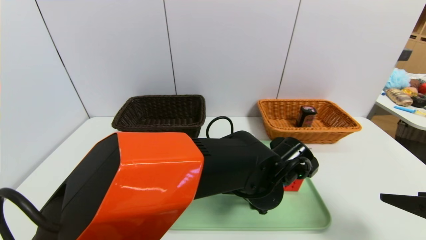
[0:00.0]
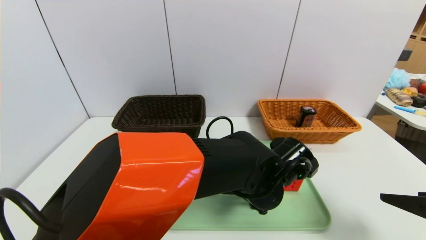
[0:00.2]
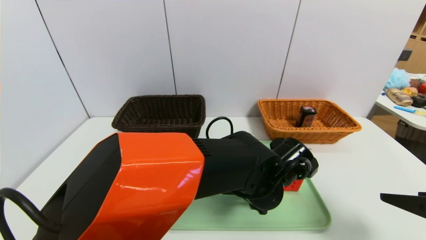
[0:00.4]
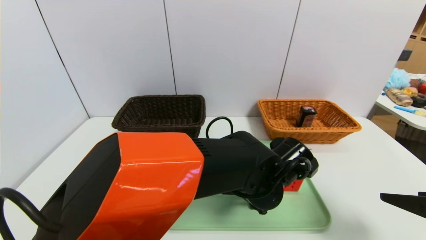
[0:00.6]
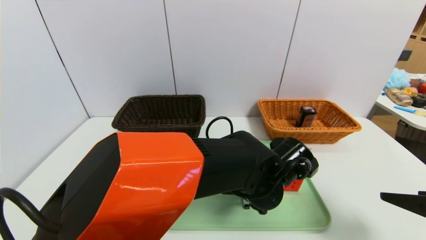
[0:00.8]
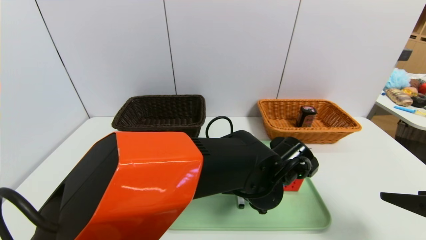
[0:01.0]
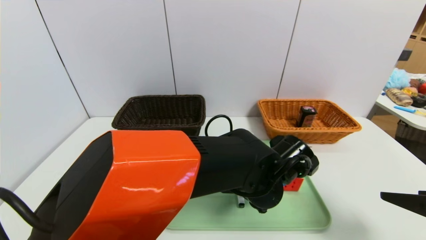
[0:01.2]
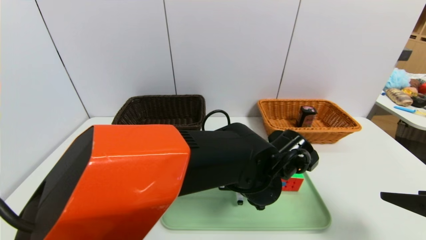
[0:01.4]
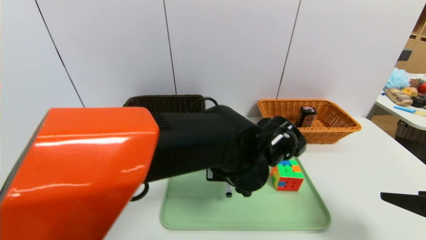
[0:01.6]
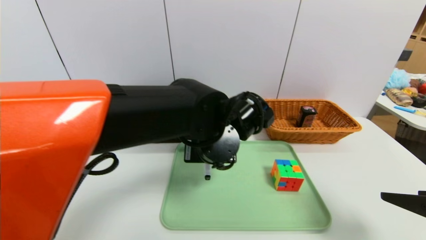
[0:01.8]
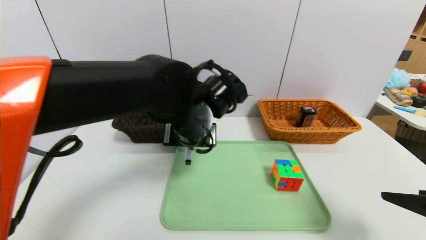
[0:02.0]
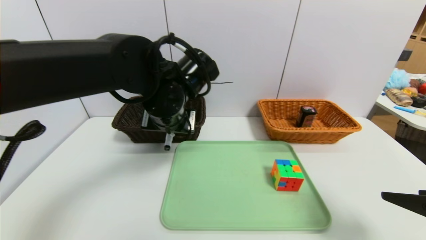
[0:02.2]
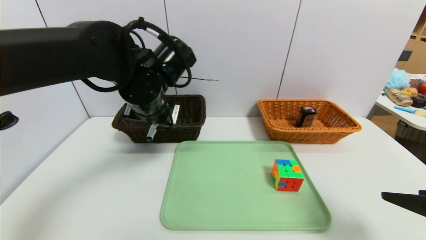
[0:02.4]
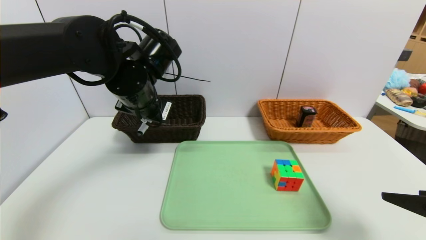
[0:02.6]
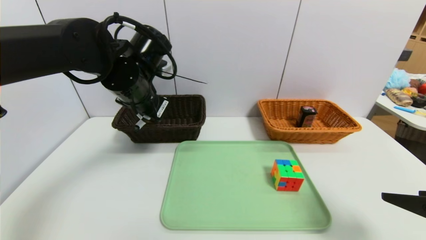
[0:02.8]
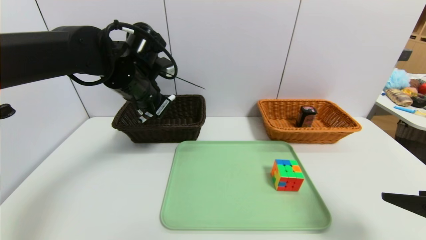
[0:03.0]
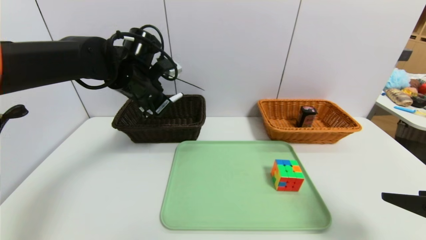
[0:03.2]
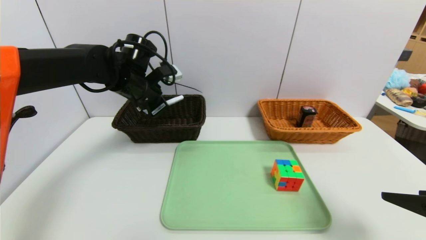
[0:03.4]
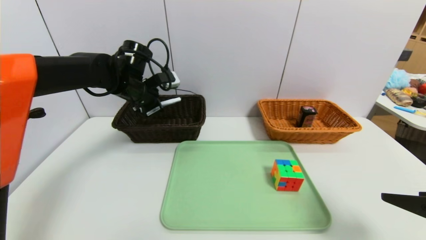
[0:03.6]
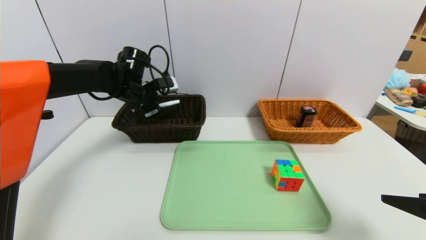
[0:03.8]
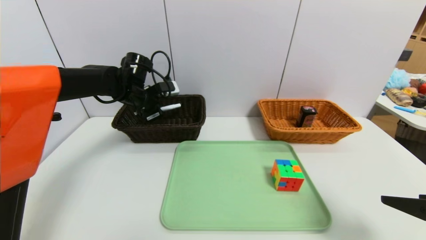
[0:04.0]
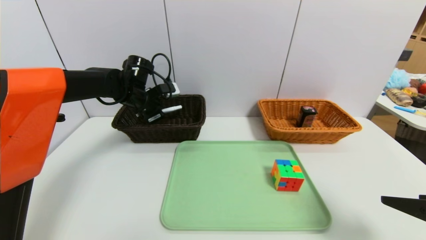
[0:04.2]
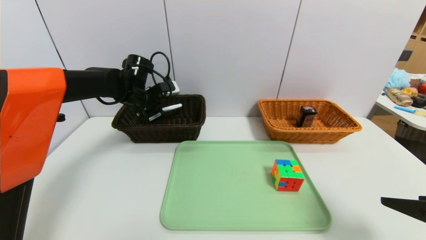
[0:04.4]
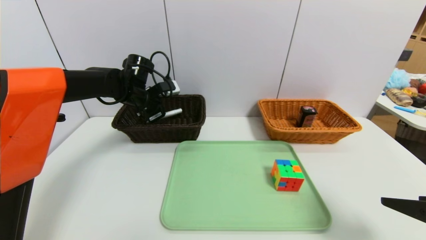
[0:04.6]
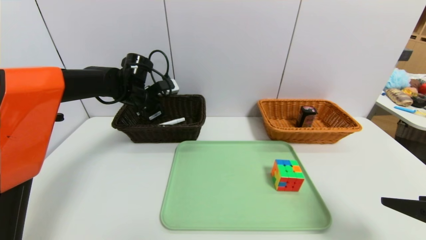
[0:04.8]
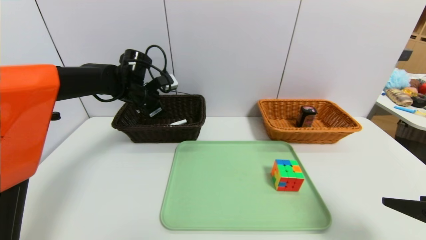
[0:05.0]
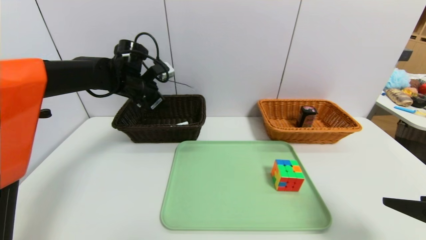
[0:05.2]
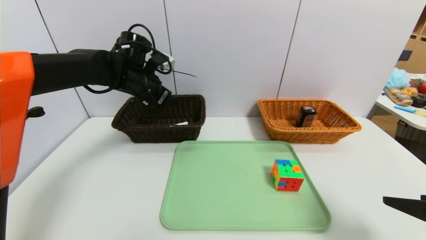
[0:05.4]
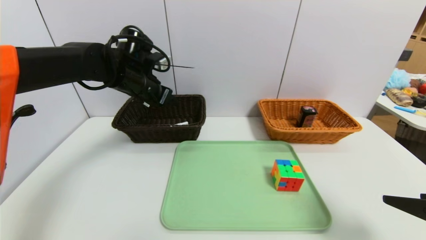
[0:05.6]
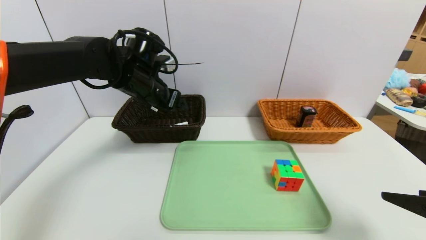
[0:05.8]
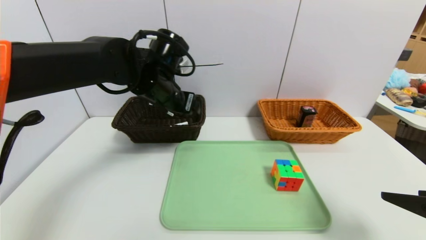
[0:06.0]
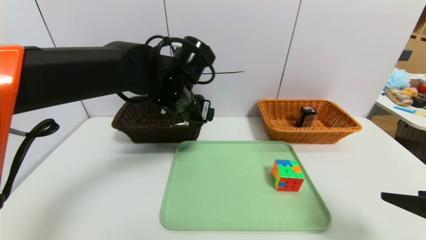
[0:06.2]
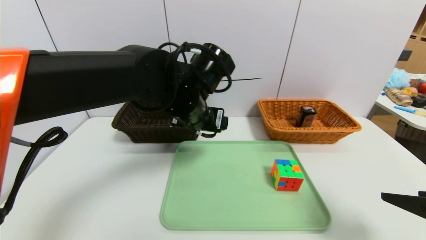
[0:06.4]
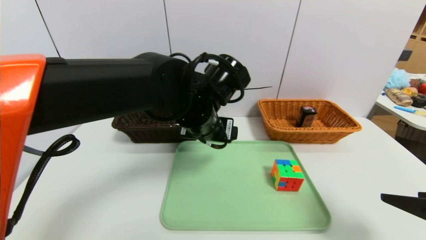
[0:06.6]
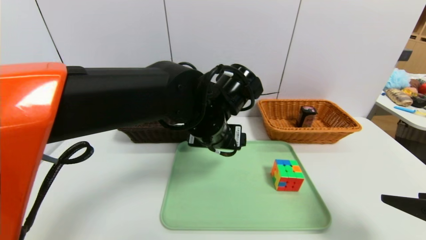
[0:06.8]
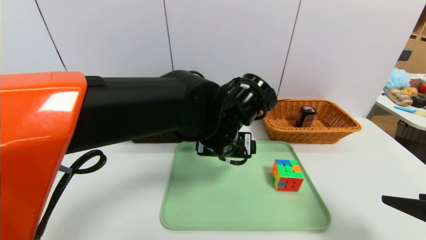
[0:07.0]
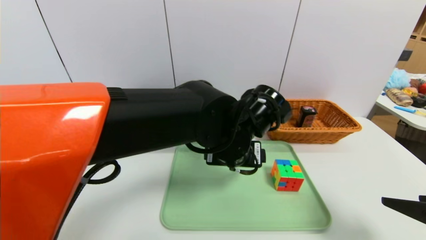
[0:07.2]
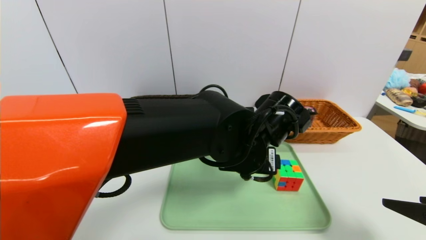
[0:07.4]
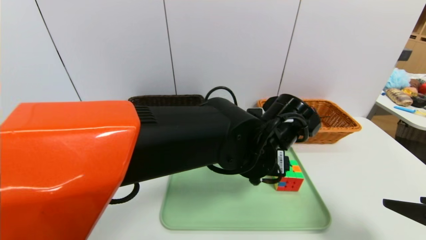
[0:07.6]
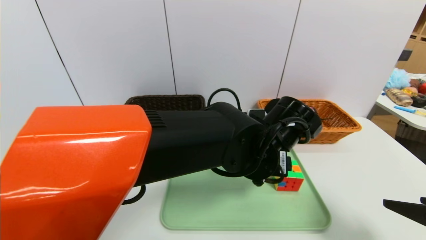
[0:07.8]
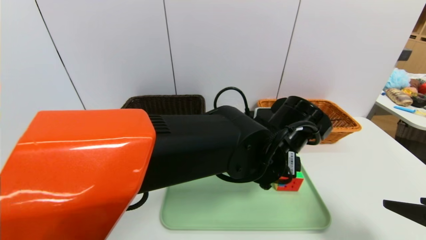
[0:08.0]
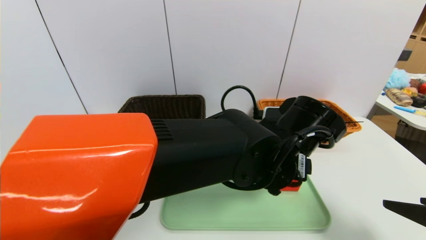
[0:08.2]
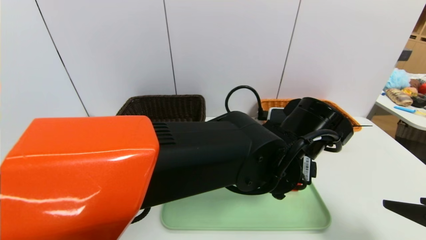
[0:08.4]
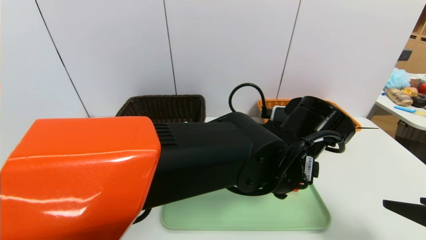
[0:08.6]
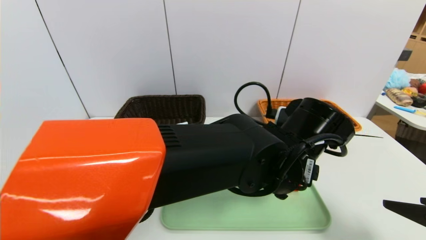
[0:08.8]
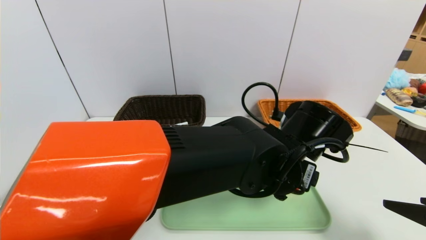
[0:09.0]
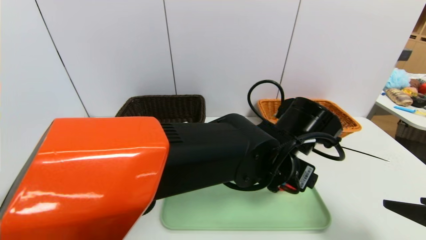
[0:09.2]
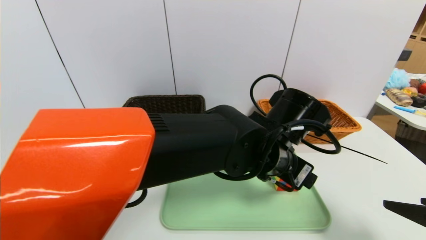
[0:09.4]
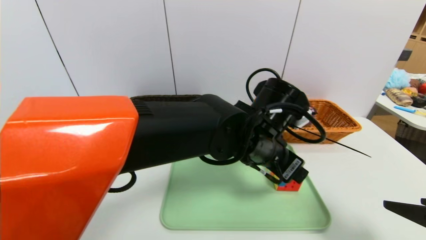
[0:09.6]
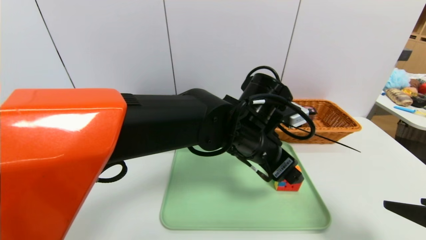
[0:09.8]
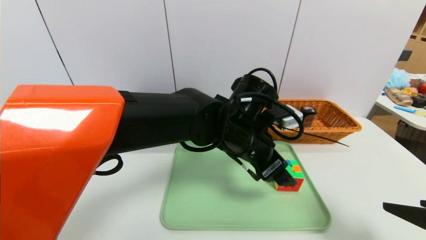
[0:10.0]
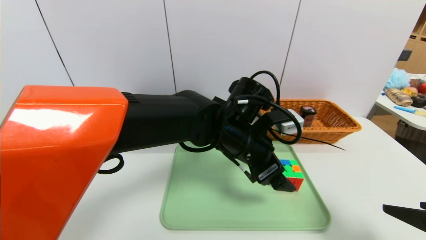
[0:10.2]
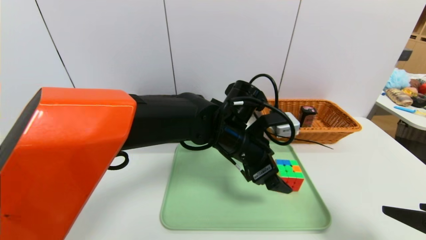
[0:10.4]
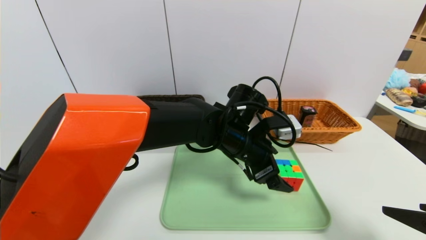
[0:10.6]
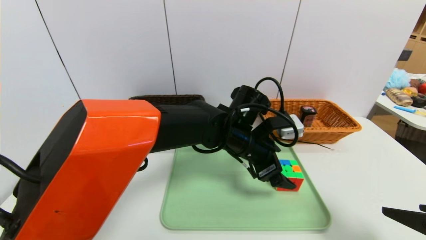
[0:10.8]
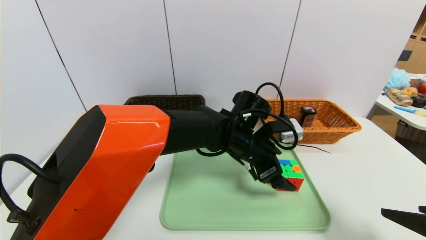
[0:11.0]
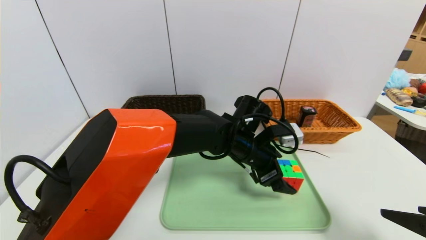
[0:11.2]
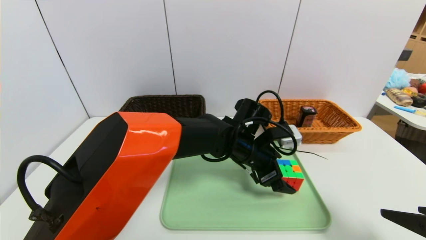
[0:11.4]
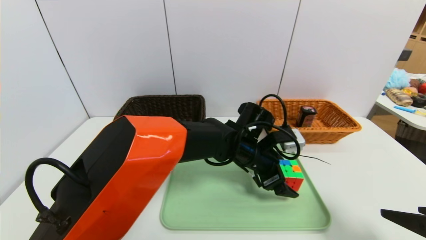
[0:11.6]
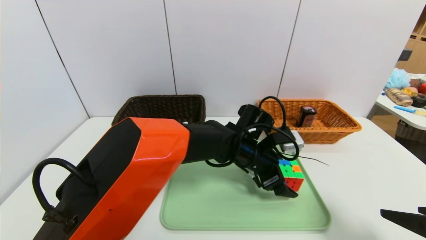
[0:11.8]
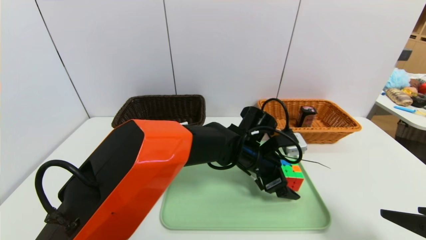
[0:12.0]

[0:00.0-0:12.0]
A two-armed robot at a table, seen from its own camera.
Task of the whole recording: place the food in the right basket with the right gripper, and place the non food items in the left basket with the left gripper.
Step, 0:00.0 to 0:04.8: Grasp the black marker and put it in the left basket.
0:00.0 to 0:01.6: The left gripper shifts by roughly 5 cm, and closes.
0:01.6 to 0:03.0: The left gripper is displaced to the left, forward and upward by approximately 25 cm.
0:03.0 to 0:04.4: The left gripper heads forward and downward, covering approximately 10 cm.
0:04.4 to 0:06.0: The left gripper moves backward, to the right and upward, about 15 cm, and opens up.
0:06.0 to 0:07.6: The left gripper travels to the right, backward and downward by about 20 cm.
0:09.0 to 0:10.4: The left gripper travels forward and to the left by about 10 cm.
0:10.4 to 0:12.0: The left gripper shifts some 5 cm downward.

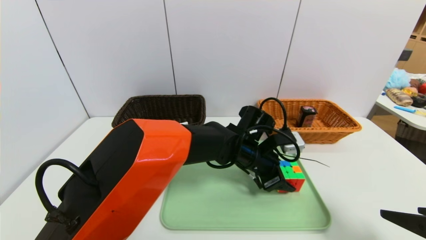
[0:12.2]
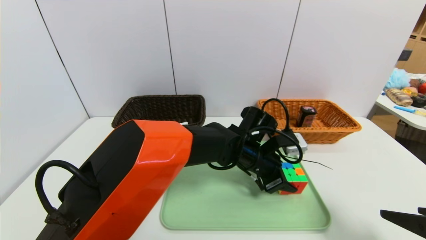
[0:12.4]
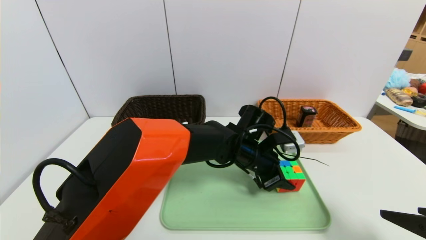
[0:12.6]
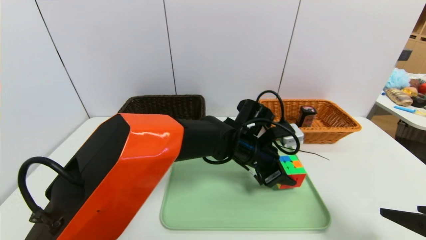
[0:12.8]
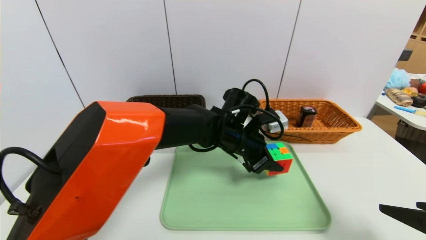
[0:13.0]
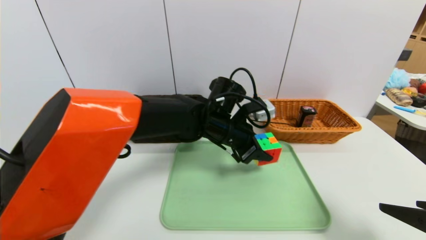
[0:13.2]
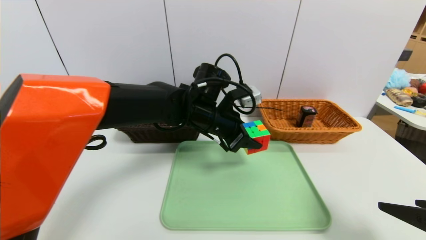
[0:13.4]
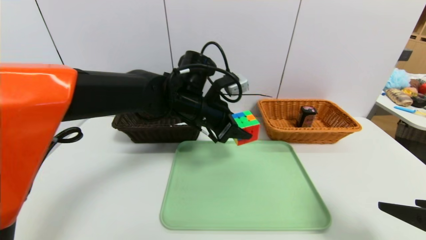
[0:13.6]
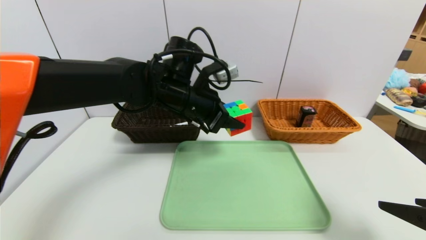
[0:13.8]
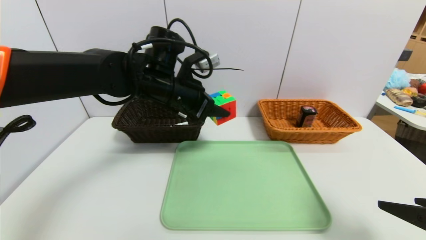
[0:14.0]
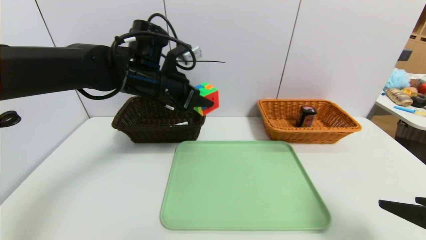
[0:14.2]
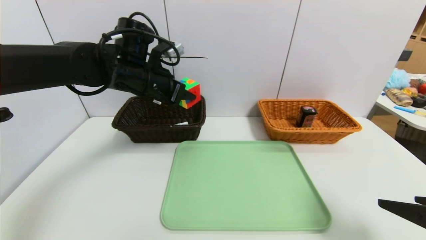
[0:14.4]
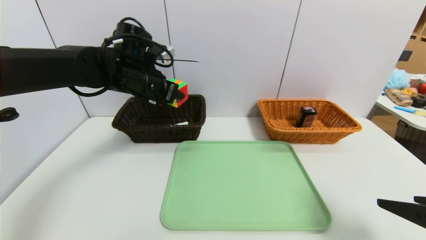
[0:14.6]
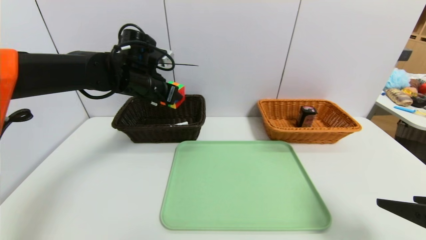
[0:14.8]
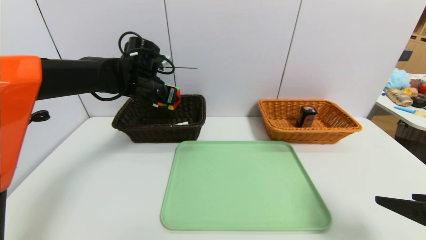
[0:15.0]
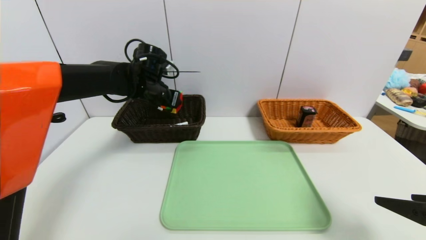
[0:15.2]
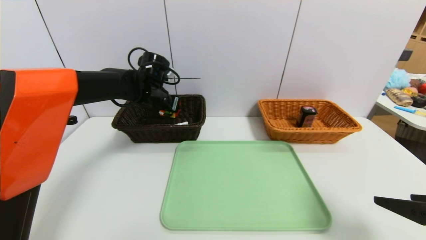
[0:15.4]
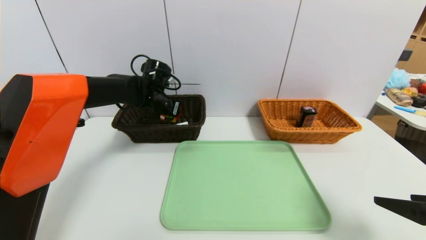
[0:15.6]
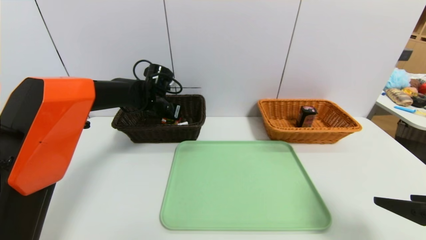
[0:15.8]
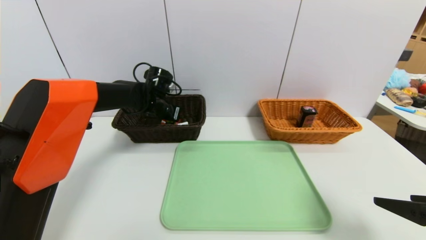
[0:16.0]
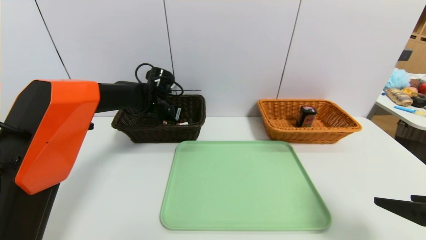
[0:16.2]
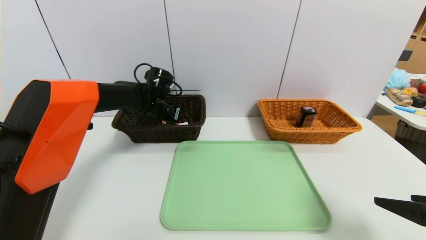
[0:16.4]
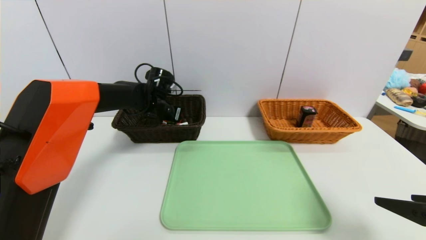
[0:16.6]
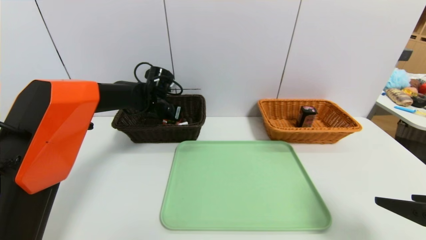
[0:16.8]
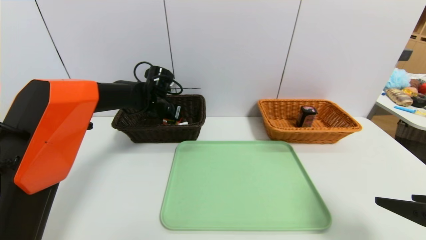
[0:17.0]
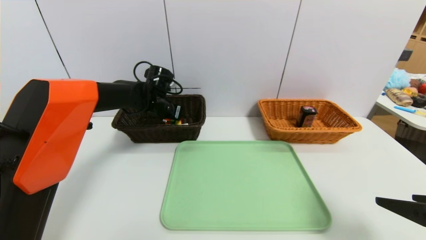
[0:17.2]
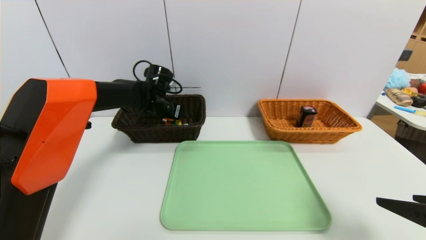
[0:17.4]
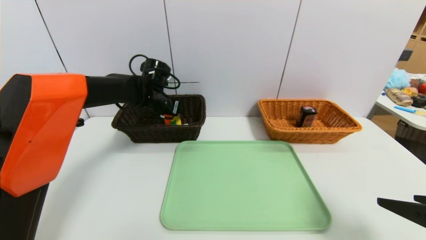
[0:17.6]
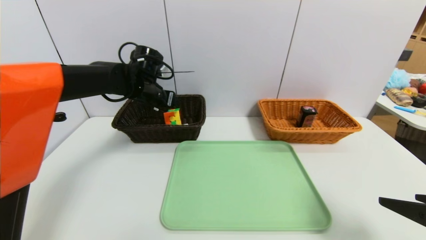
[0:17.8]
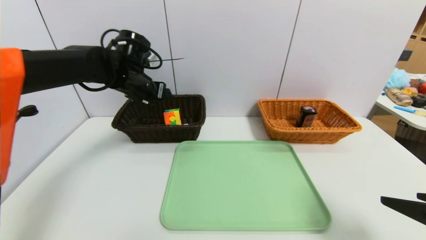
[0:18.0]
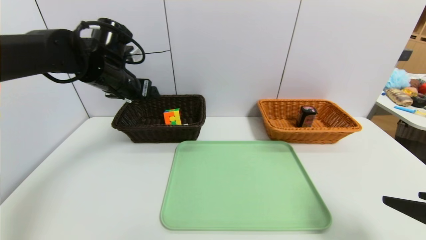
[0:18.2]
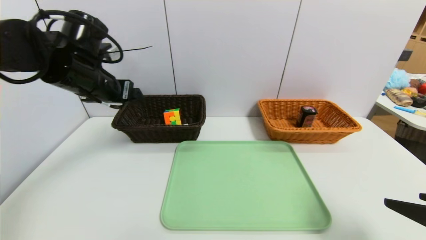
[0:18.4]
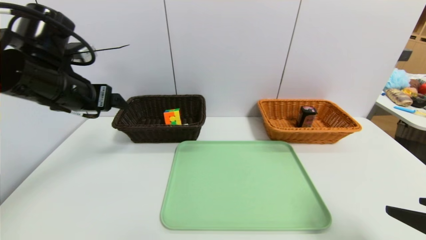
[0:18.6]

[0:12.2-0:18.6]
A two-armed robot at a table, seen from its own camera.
Task of the whole recording: place the food in the right basket with the right gripper, and place the non food items in the left basket with the left gripper.
Step, 0:12.2 to 0:17.6: Grasp the rubiks cube and put it in the left basket.
0:12.2 to 0:13.8: The left gripper shifts about 20 cm to the left and upward.
0:13.8 to 0:15.4: The left gripper moves forward and to the left, about 15 cm.
0:15.4 to 0:17.0: There are only small adjustments of the grippers.
0:17.0 to 0:18.6: The left gripper travels backward, upward and to the left by roughly 25 cm, and opens its fingers.
